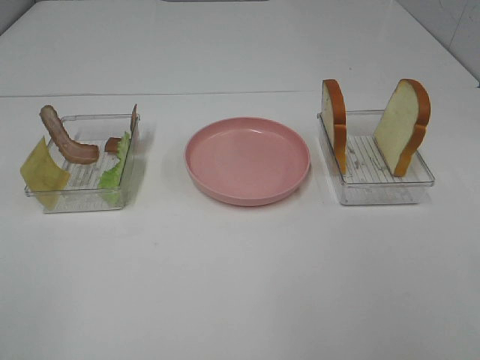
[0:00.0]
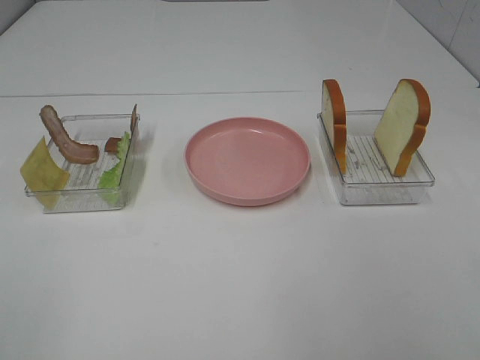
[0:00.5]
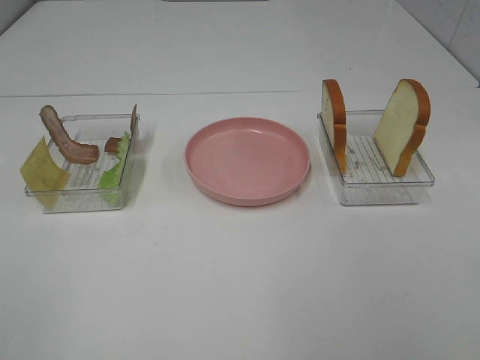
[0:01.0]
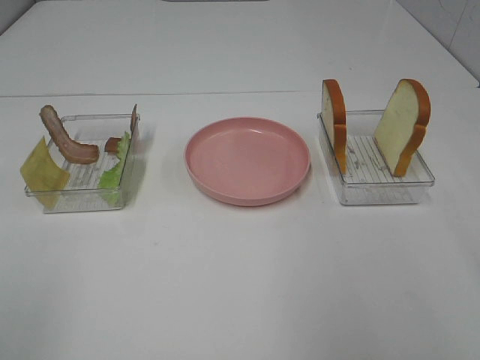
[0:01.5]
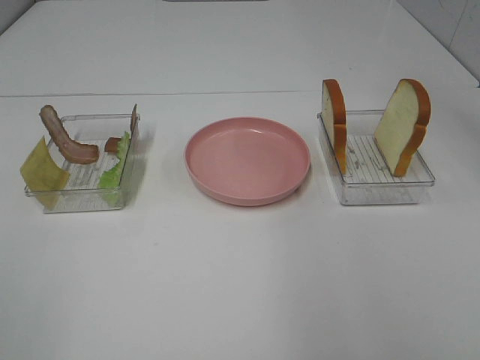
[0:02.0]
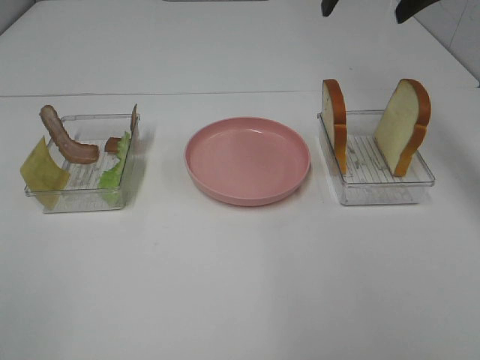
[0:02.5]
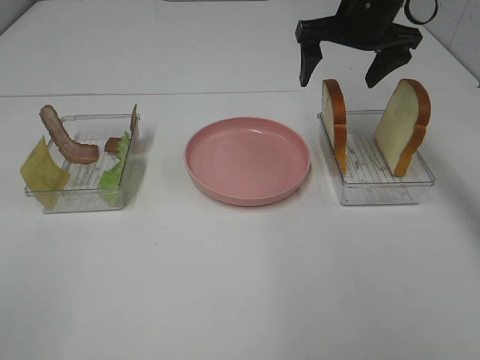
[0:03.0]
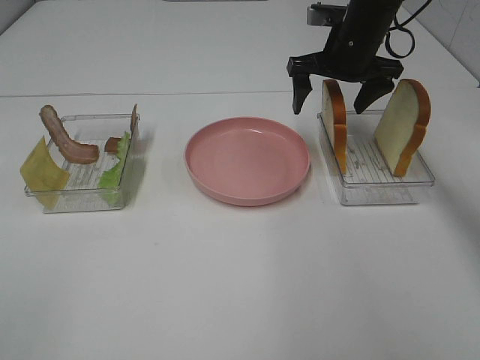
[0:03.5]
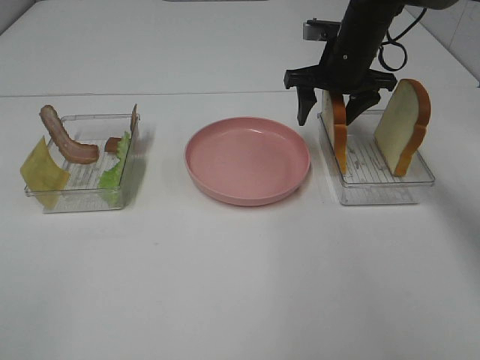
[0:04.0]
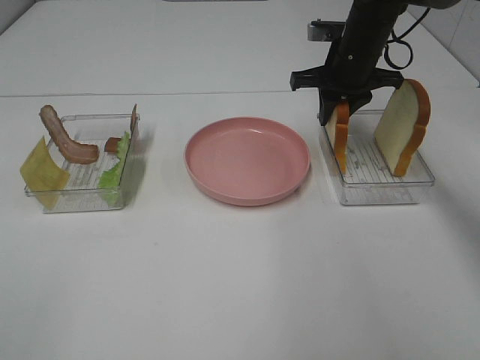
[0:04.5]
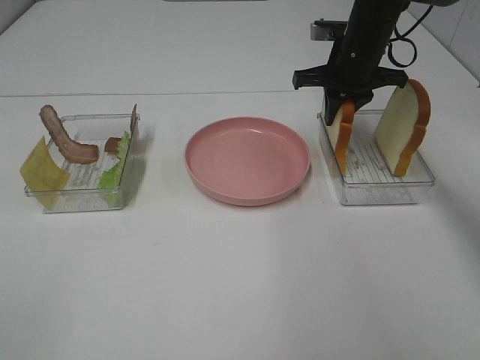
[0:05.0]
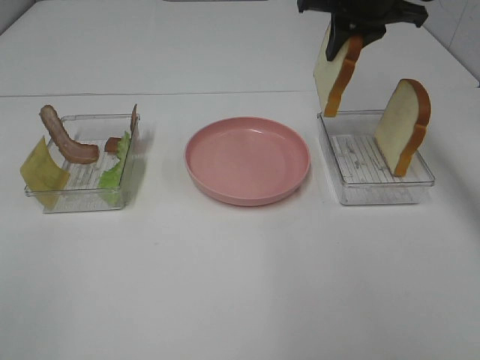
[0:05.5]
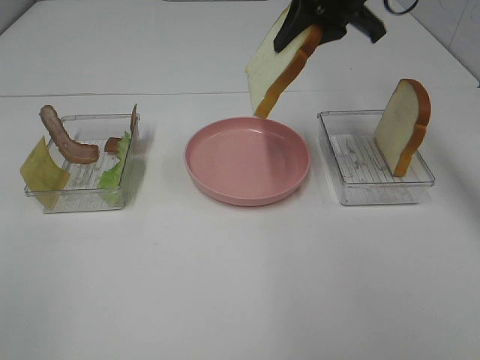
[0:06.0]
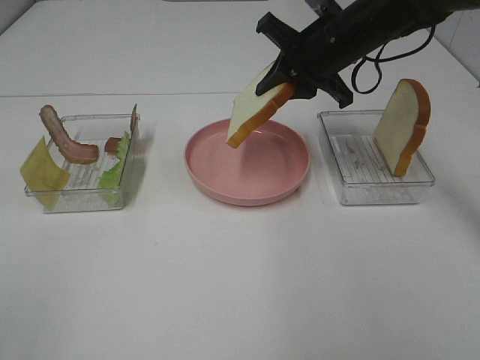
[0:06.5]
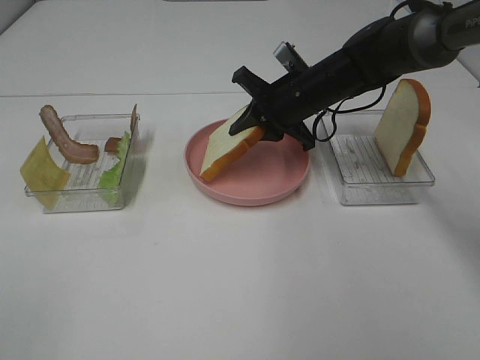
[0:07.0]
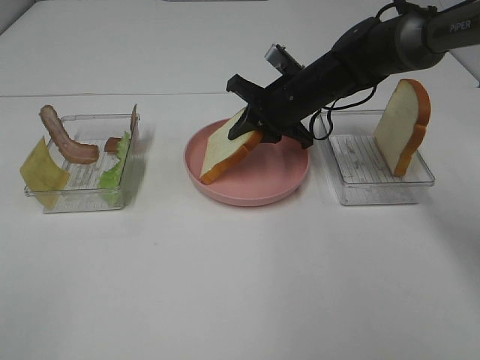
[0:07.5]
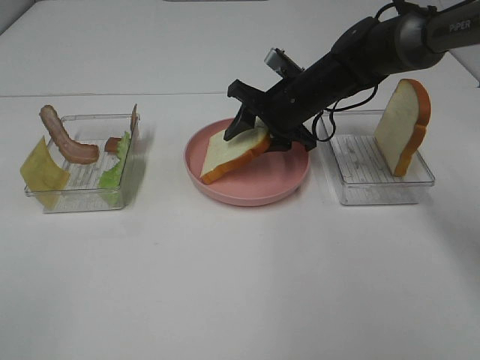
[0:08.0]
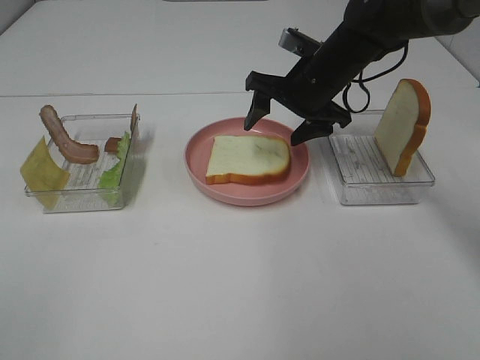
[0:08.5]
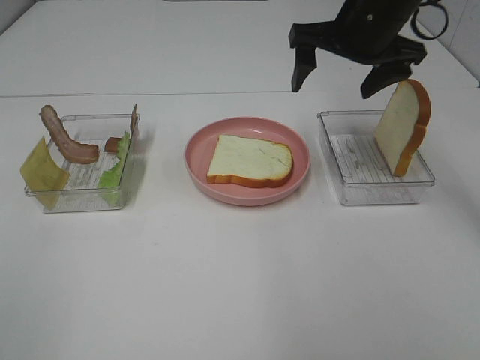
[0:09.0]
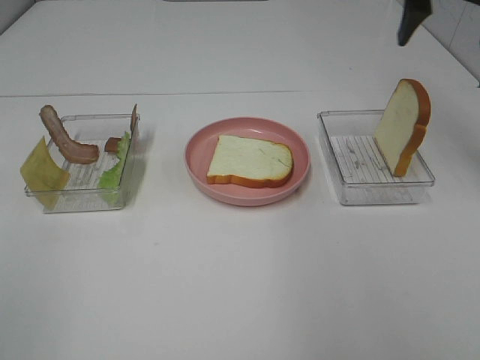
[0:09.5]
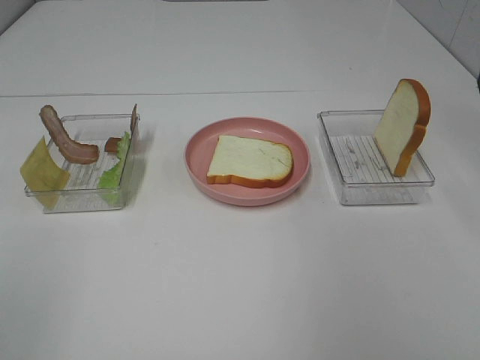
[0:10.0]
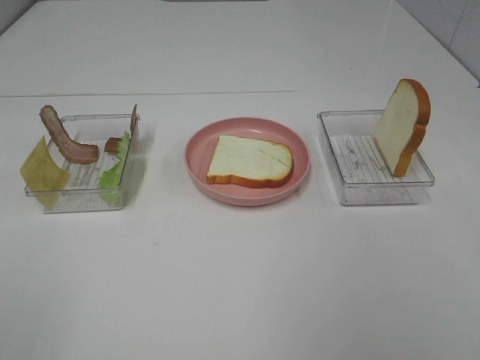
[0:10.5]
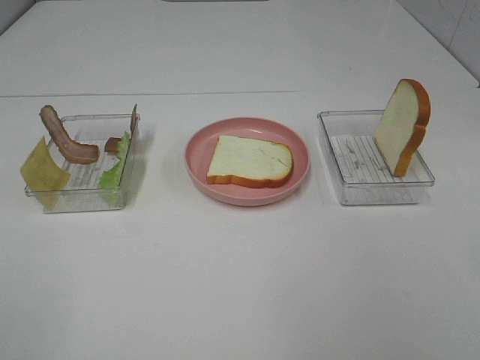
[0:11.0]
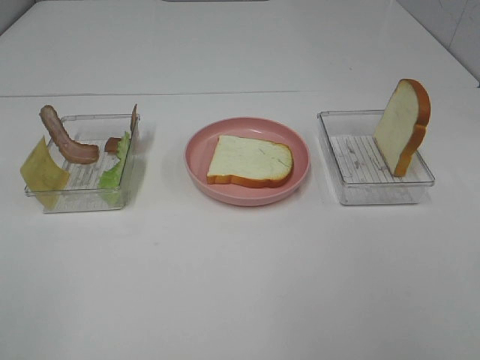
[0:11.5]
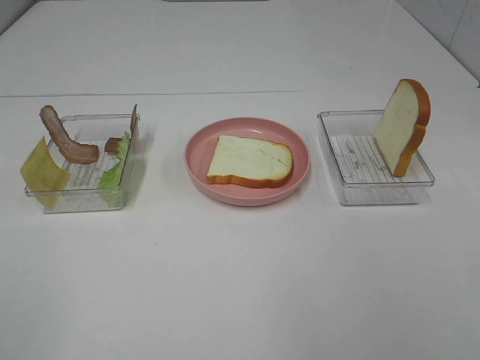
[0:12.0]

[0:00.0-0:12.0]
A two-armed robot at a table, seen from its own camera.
Task of the whole recording: Make sandwiches.
Step, 0:00.0 to 0:04.5: Right hand:grab the bread slice.
Step, 0:05.0 to 0:08.5: Right hand:place the bread slice on the plate.
0:02.0 to 0:04.0: The right gripper goes roughly 25 cm downward, forward and to the left, and closes its fingers.
0:04.0 to 0:06.0: The right gripper shifts roughly 10 cm upward and backward, and closes its fingers.
0:06.0 to 0:08.0: The right gripper moves downward, some 15 cm, and opens.
0:08.0 to 0:10.0: The right gripper travels upward, to the right and backward by about 30 cm, and opens.

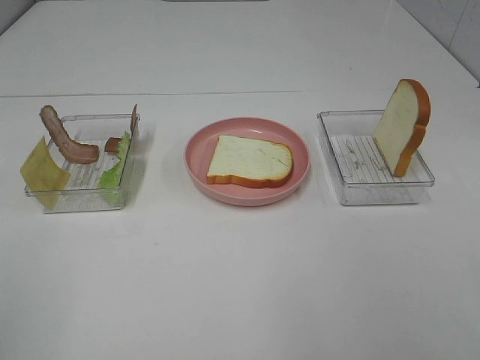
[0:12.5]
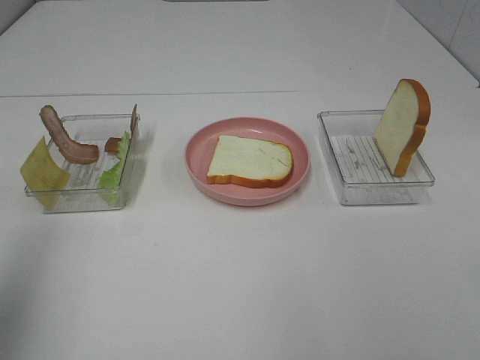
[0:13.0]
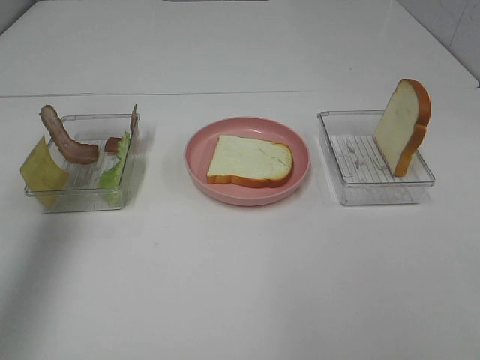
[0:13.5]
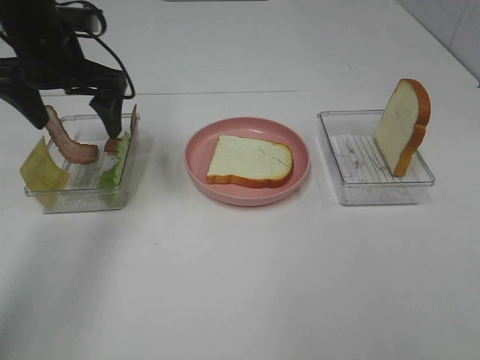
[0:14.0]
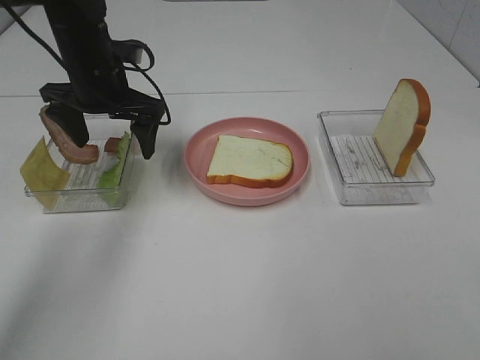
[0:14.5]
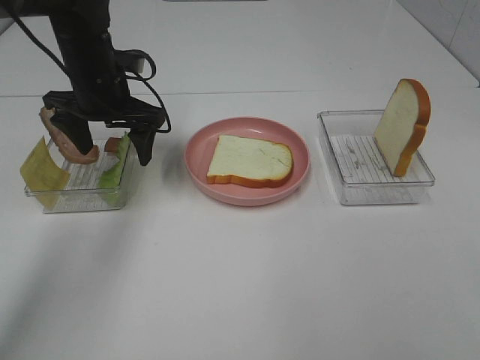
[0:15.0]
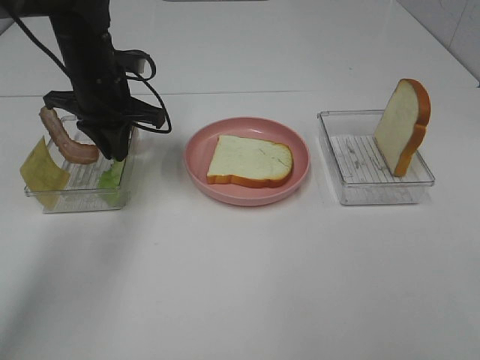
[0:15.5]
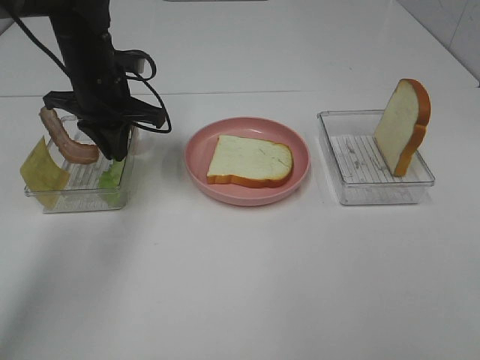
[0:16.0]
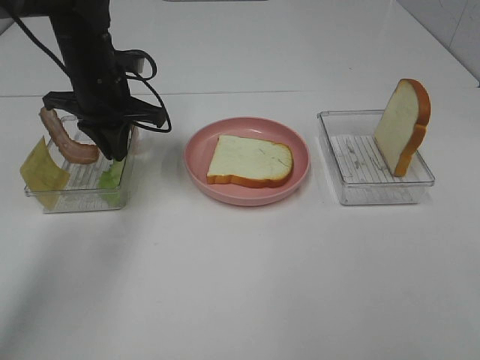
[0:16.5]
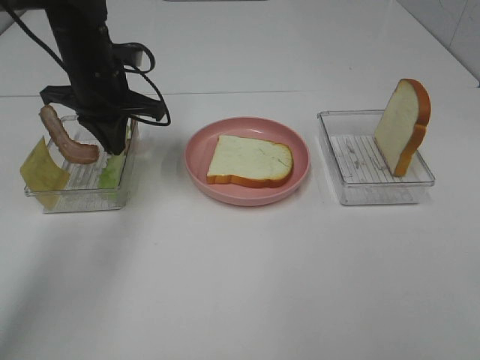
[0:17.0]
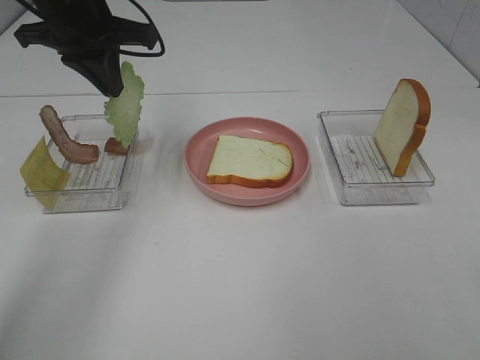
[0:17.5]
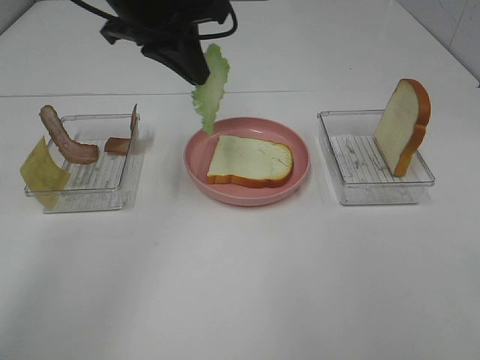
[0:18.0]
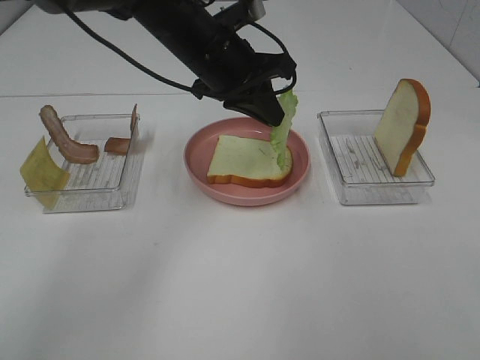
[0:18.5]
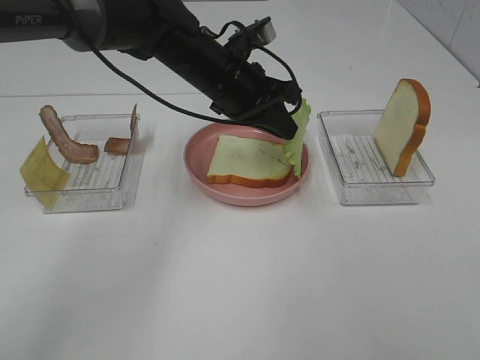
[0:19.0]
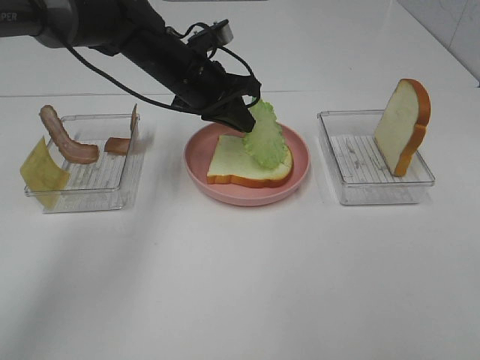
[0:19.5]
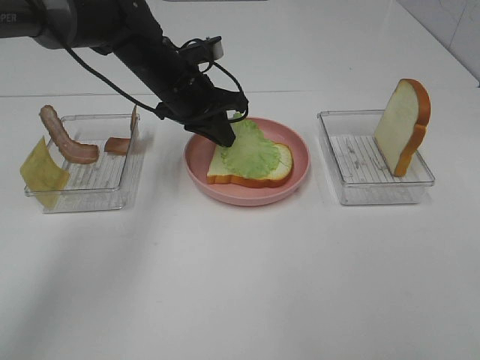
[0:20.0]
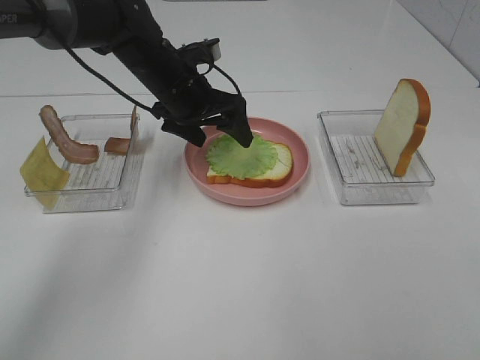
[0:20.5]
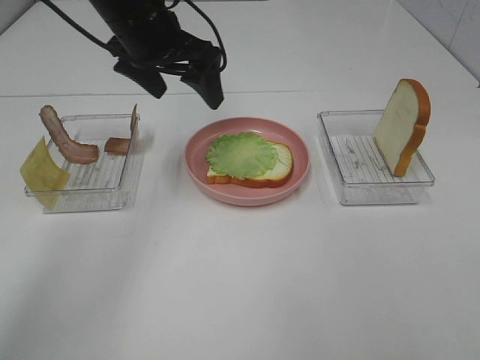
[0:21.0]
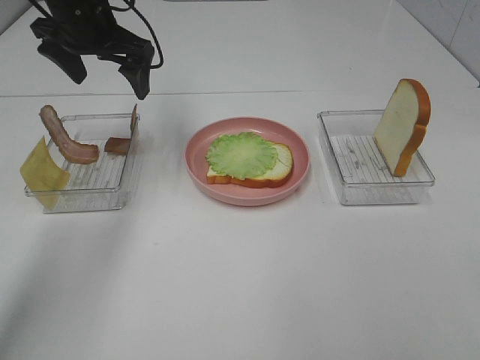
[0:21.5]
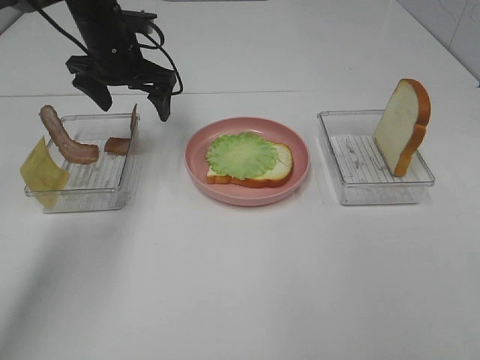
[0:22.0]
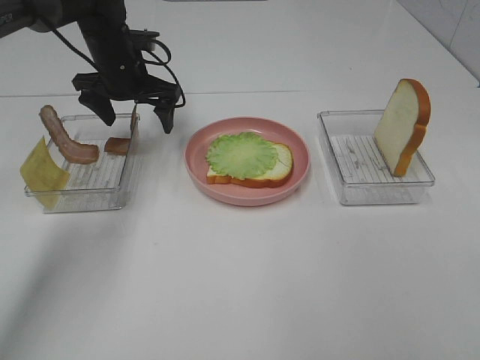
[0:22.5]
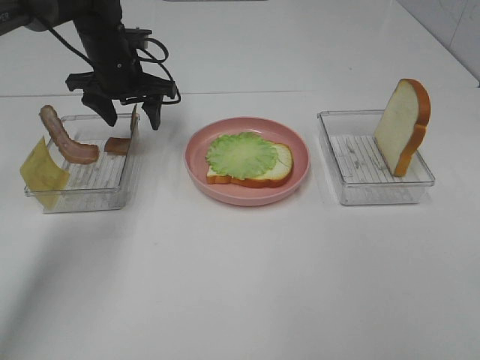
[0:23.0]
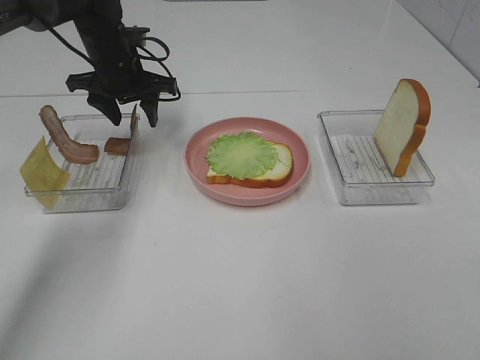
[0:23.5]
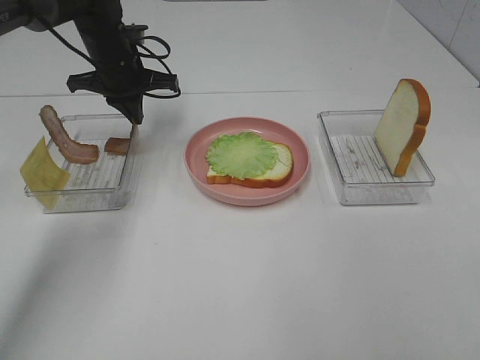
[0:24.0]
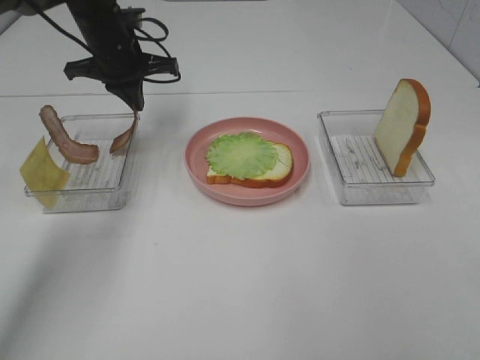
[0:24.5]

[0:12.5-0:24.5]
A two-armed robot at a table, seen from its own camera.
Task of the whole recording: Make sandwiches.
Step, 0:12.5 to 0:17.0: Left hand:grab the lettuce slice.
Step, 0:17.5 to 0:20.5: Left hand:place the lettuce slice on the bread slice.
0:12.5 to 0:14.5: The left gripper heads forward, covering approximately 40 cm.
0:14.5 to 0:16.5: The left gripper closes.
0:16.5 to 0:18.5: The left gripper heads to the right, covering about 15 cm.
0:18.5 to 0:20.5: The left gripper travels downward and to the left by some 10 cm, and opens up.
0:20.5 to 0:22.5: The left gripper shifts roughly 10 cm to the left and forward, and goes upward and returns, some 10 cm each way.
0:22.5 to 0:24.5: The left gripper closes.

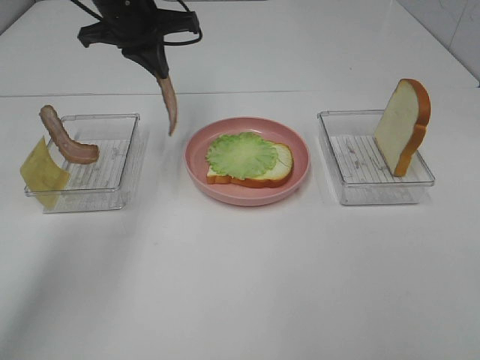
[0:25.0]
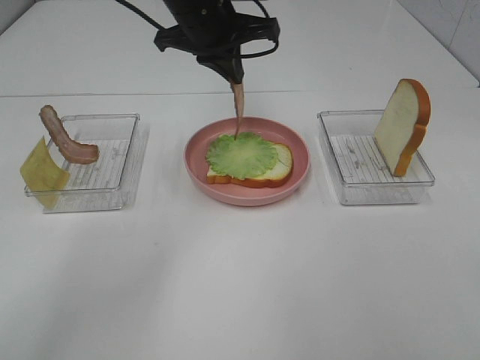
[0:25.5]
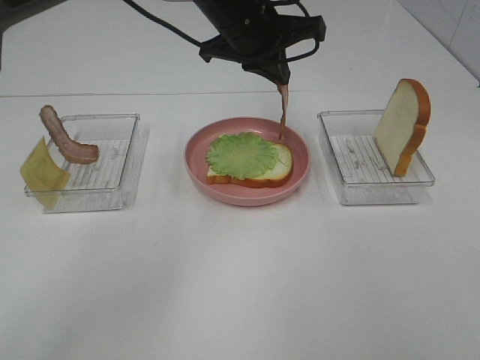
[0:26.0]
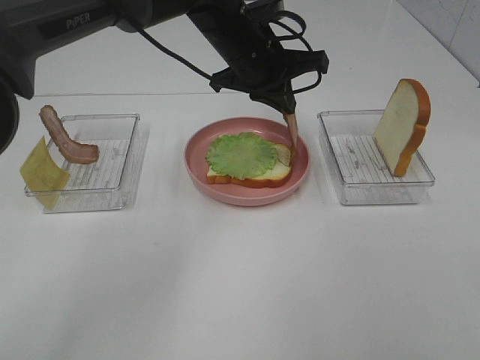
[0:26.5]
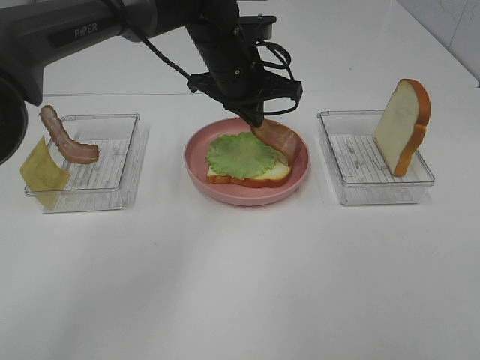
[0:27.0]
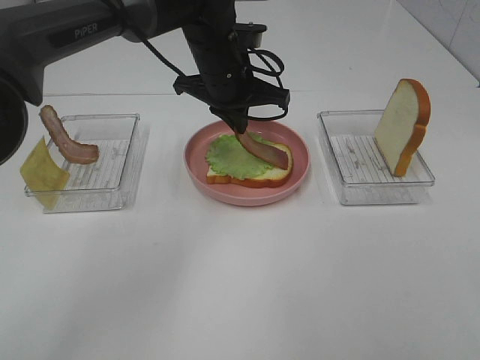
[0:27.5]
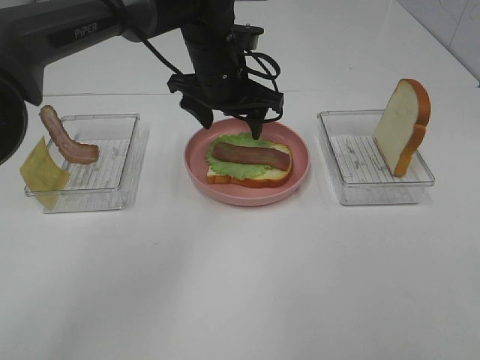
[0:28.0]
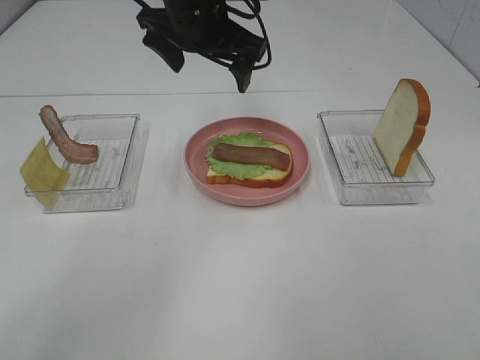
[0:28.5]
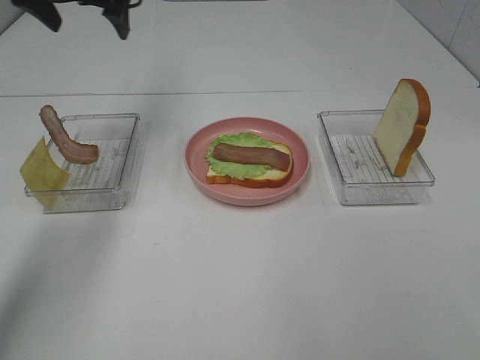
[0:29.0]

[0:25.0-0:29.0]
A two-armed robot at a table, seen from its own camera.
Task of the whole recording: Make sandwiches.
Step, 0:25.0 to 0:28.0: Left hand:place bacon on lettuce slice.
0:25.0 to 0:27.0: The left gripper moves to the right and downward, some 15 cm.
0:27.0 to 0:29.0: The left gripper travels to the left and upward by about 25 cm, and opens.
